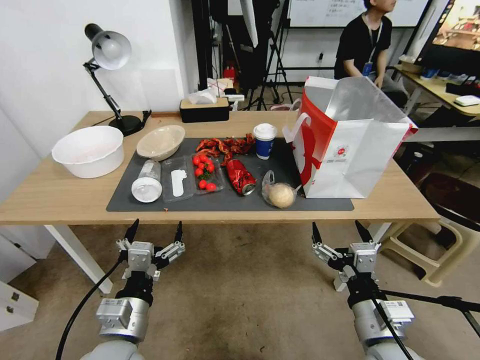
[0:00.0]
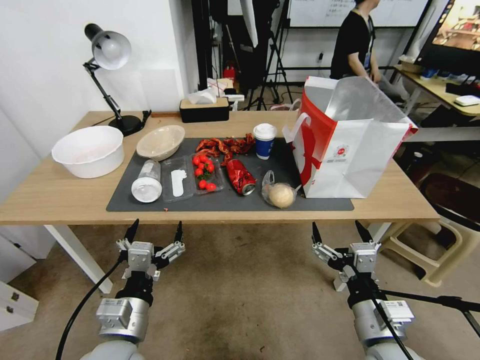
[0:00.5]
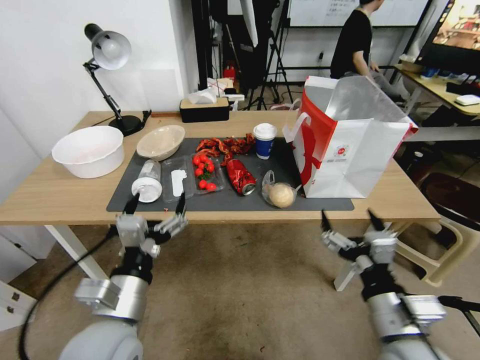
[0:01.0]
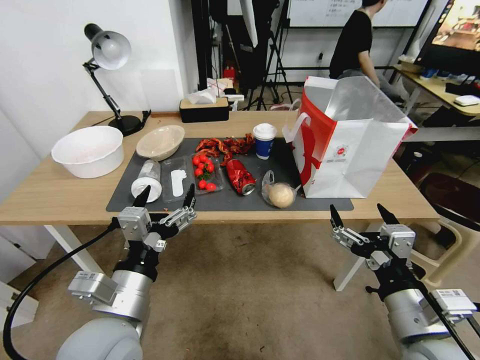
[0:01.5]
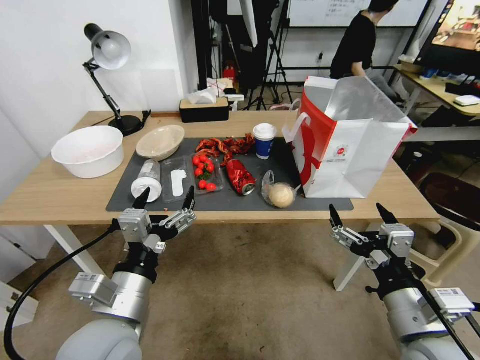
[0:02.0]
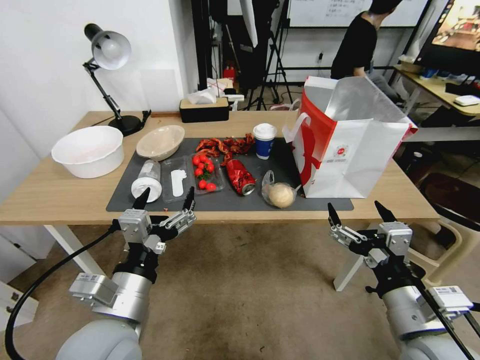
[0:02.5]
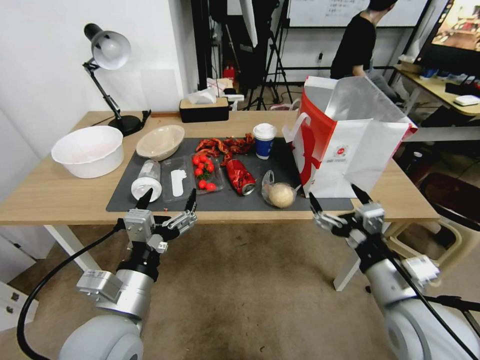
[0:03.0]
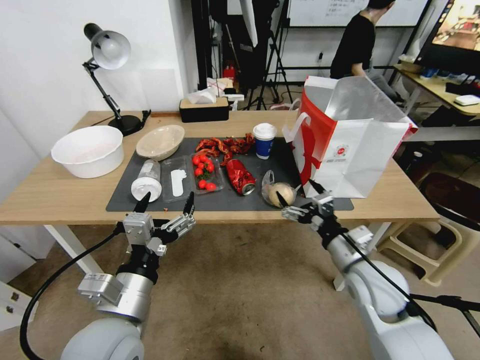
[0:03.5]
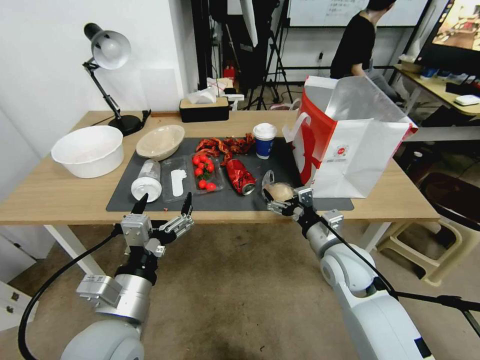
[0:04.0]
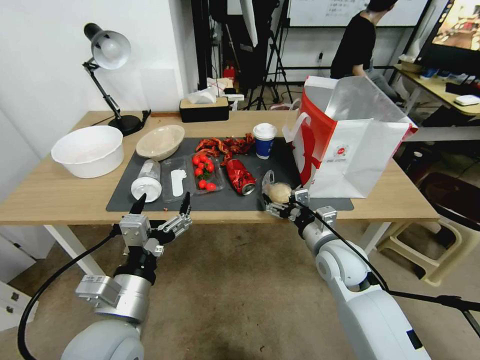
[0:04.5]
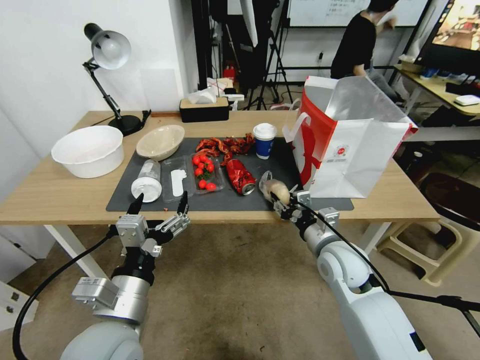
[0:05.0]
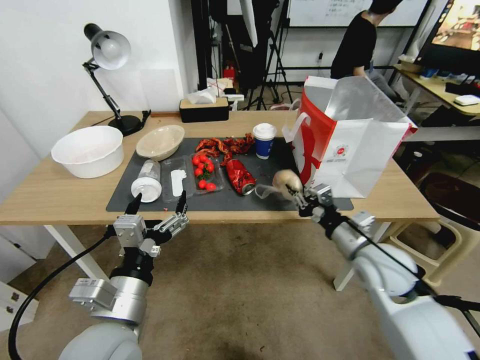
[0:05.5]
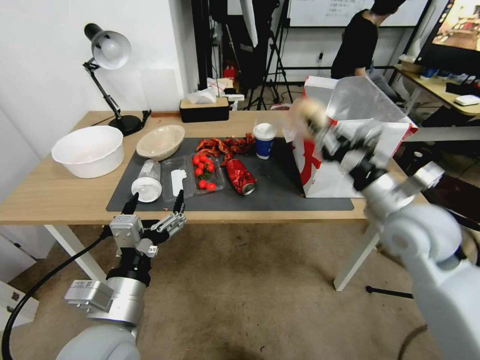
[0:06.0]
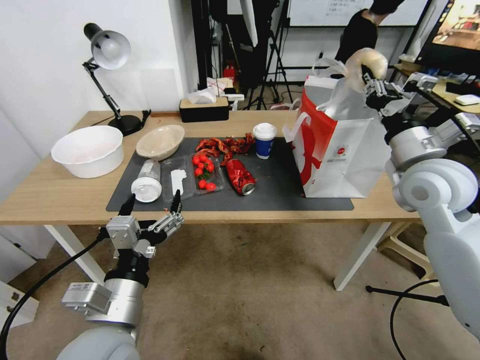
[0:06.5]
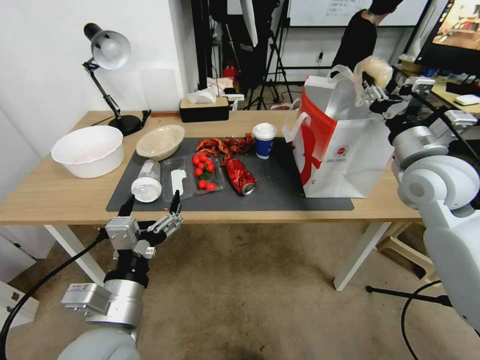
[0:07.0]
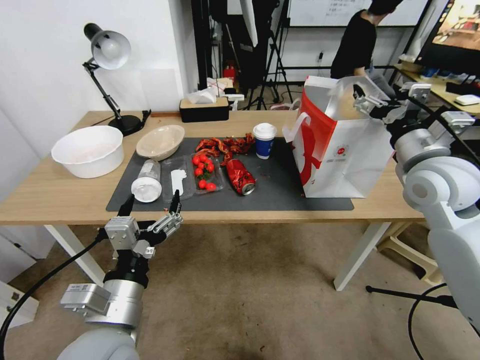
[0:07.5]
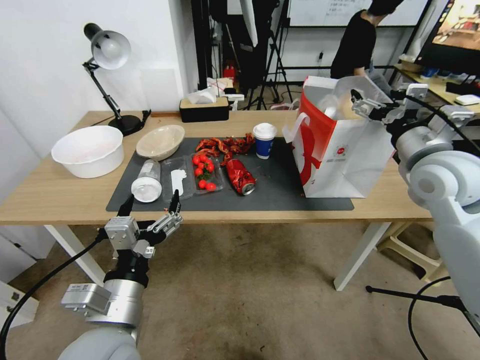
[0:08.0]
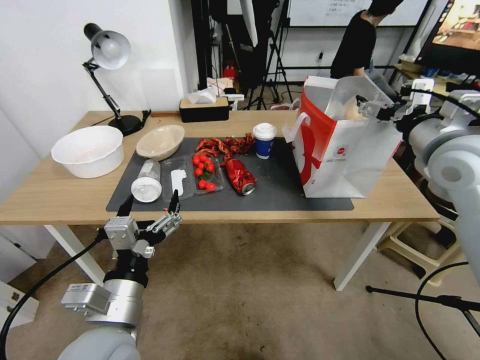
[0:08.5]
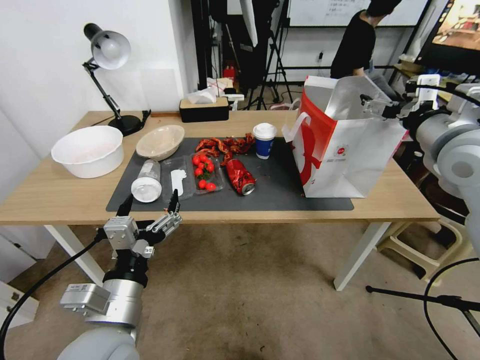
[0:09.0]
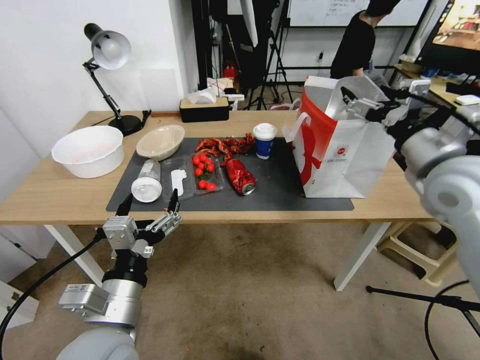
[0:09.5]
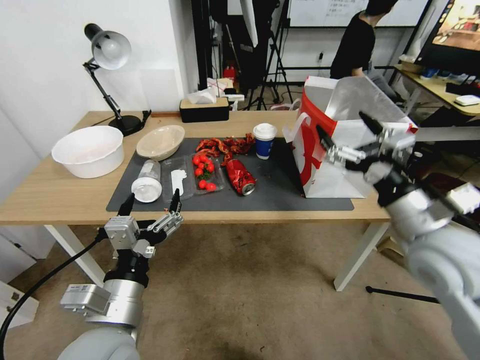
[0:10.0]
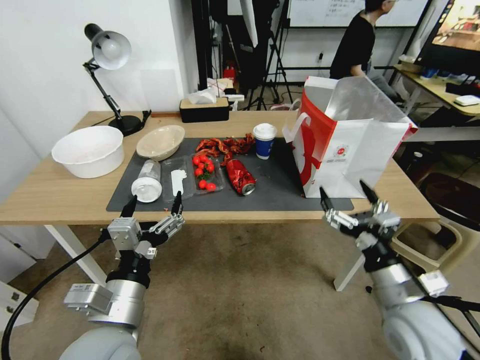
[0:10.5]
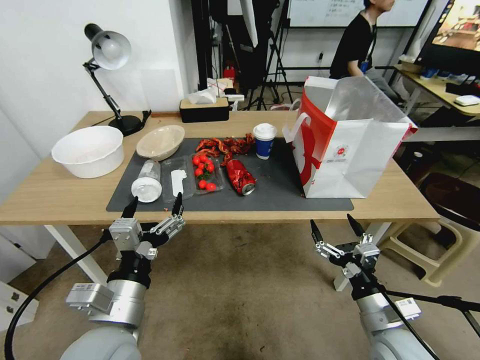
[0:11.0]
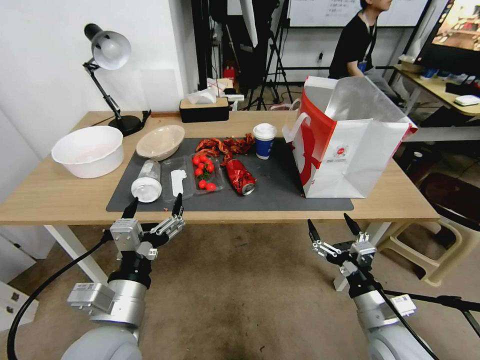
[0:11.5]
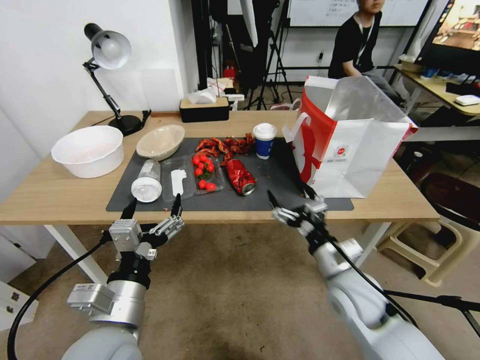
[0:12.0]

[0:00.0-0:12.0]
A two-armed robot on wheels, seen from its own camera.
0:02.0 to 0:04.0: The right gripper shifts some 20 cm forward and downward.
0:04.0 to 0:06.0: The right gripper travels upward and to the right by roughly 15 cm, and closes up.
0:06.0 to 0:08.0: The right gripper heads forward, upward and to the right, covering some 10 cm, and opens its fingers.
0:08.0 to 0:10.0: The right gripper goes roughly 5 cm backward.
0:10.0 to 0:12.0: The right gripper heads downward and to the left, covering approximately 25 cm.

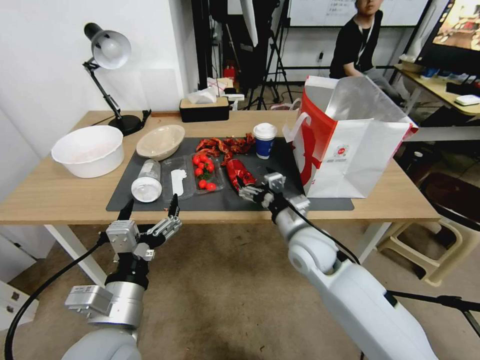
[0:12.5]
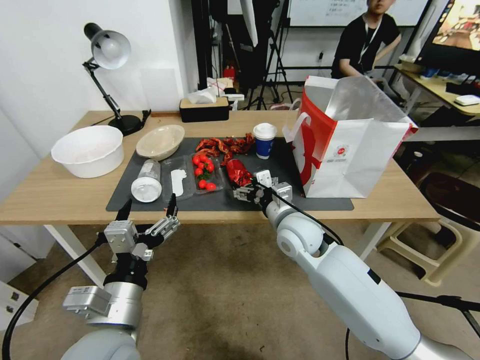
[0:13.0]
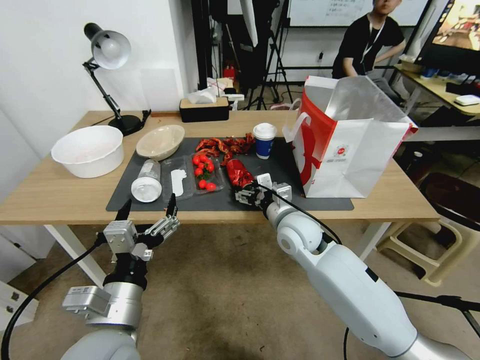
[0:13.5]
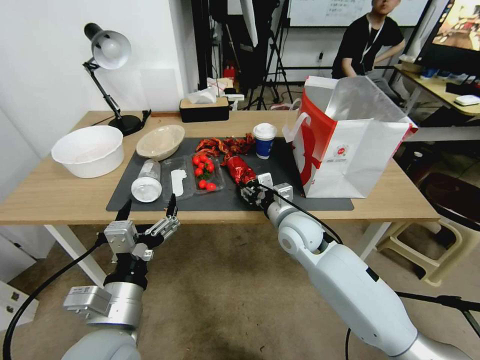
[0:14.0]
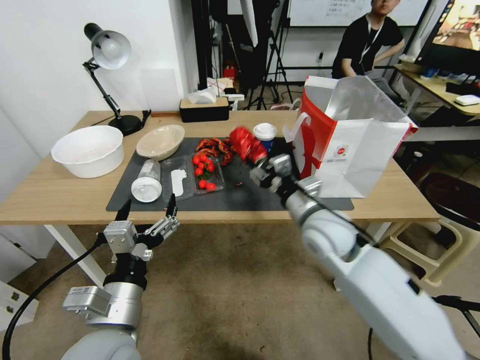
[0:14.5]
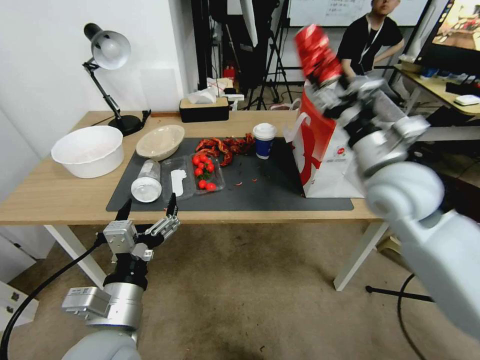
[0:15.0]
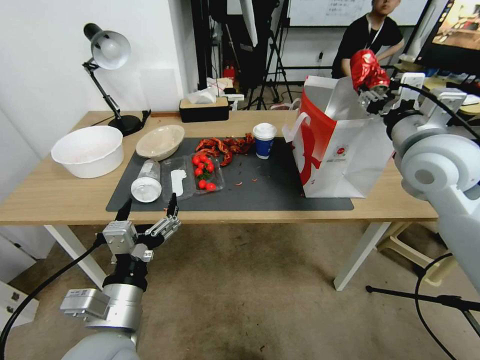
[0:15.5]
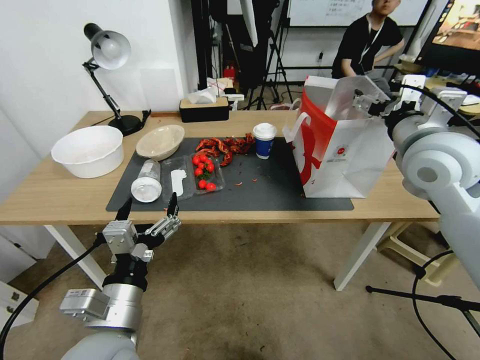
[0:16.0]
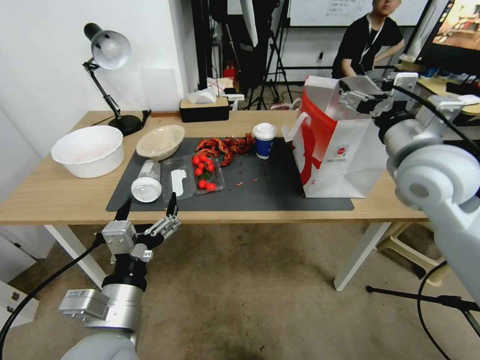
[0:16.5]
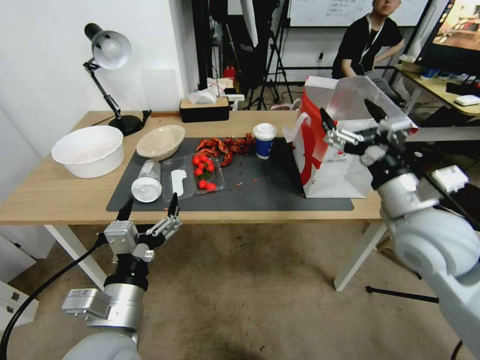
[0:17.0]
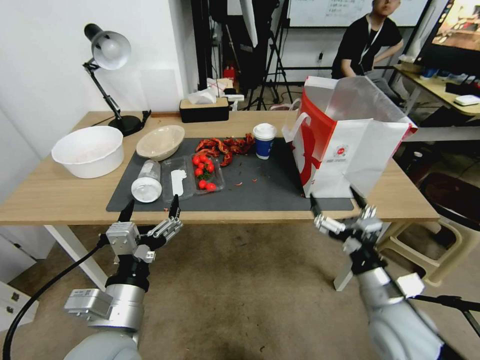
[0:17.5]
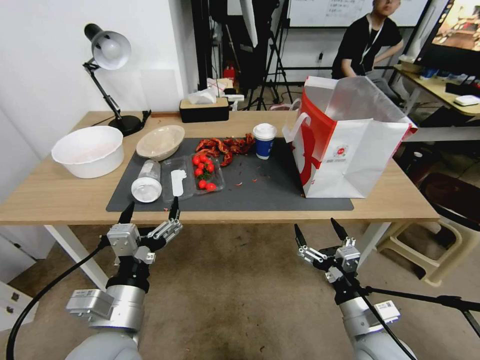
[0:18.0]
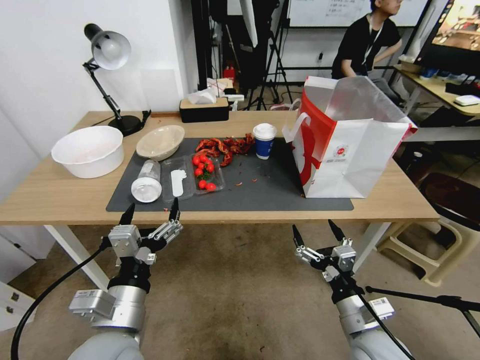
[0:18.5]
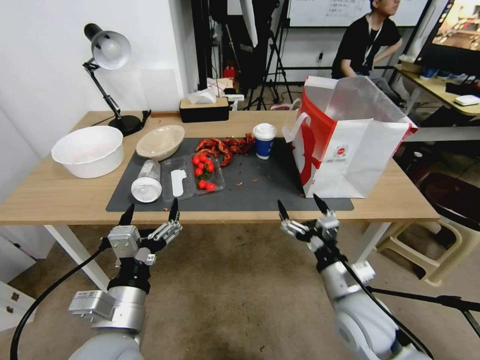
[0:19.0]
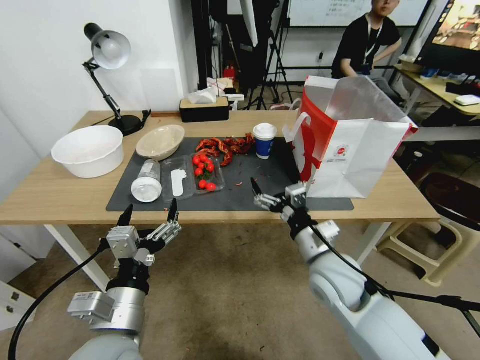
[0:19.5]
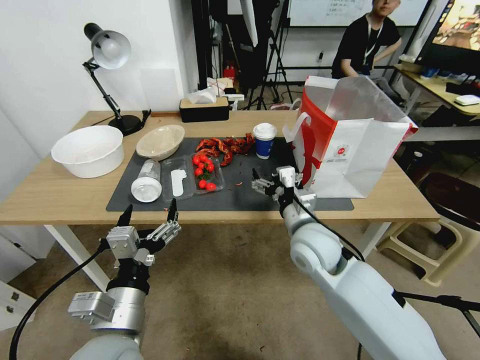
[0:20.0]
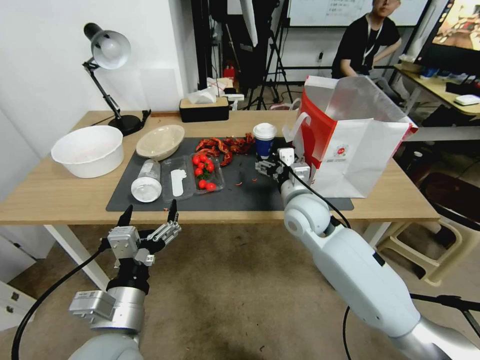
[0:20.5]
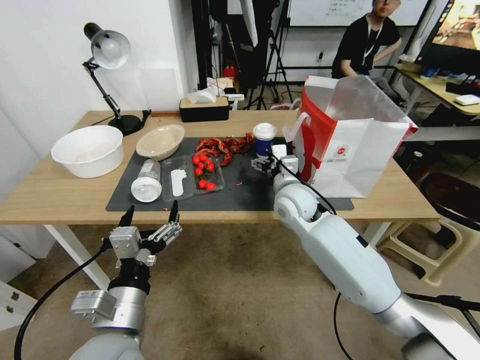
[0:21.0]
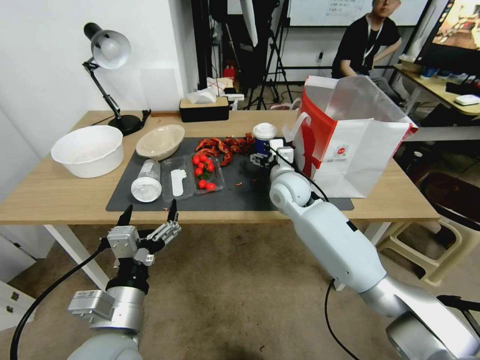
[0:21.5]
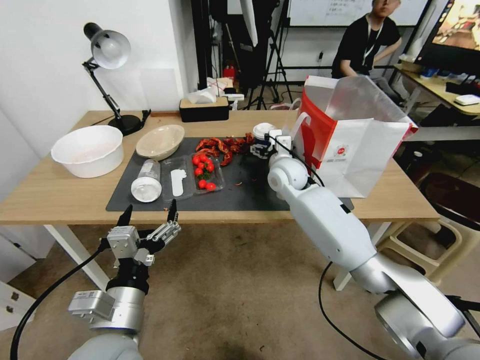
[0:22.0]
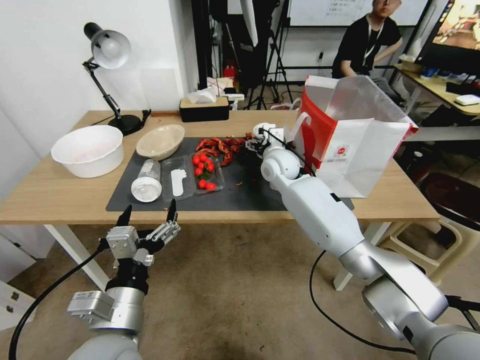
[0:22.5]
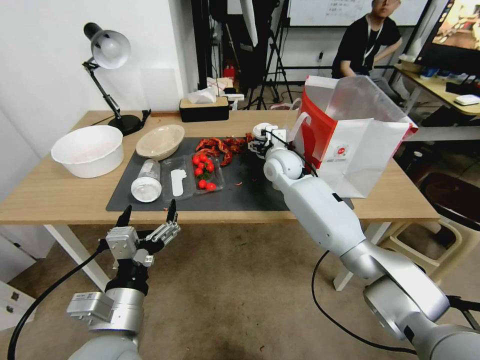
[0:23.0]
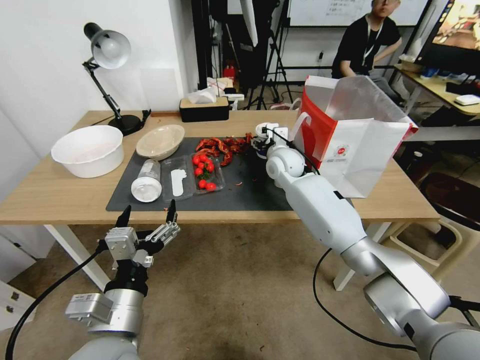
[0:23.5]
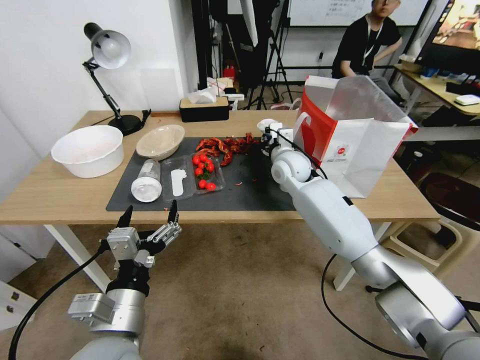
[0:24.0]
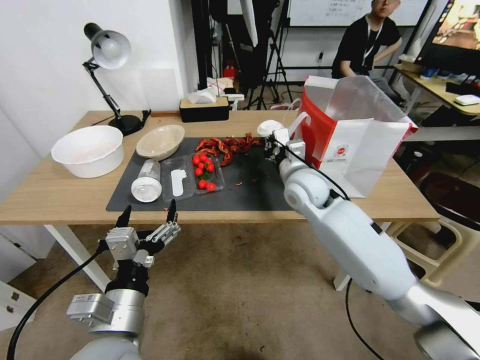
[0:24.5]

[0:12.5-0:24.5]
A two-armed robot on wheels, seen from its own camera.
0:12.5 to 0:14.5: The right gripper changes place by about 5 cm, and closes up.
0:14.5 to 0:16.5: The right gripper moves upward and to the right, approximately 20 cm, and opens.
0:16.5 to 0:18.5: The right gripper shifts about 35 cm downward and backward.
0:18.5 to 0:20.5: The right gripper goes some 30 cm forward, upward and to the left.
0:20.5 to 0:22.5: The right gripper heads forward, covering roughly 15 cm.
0:22.5 to 0:24.5: The right gripper travels backward by some 10 cm, and closes up.

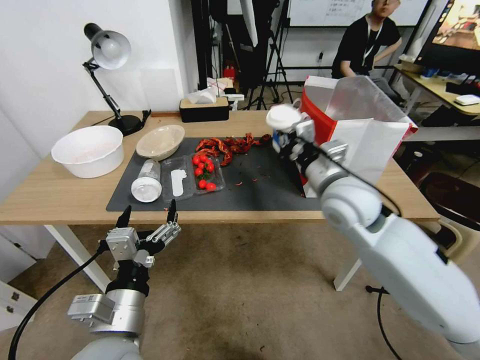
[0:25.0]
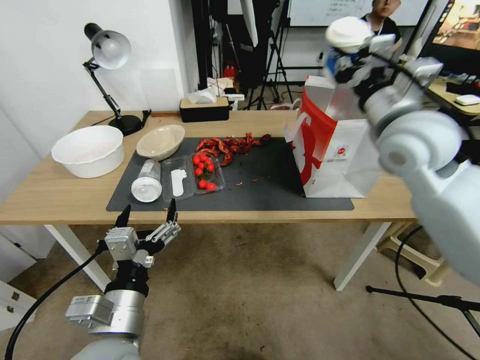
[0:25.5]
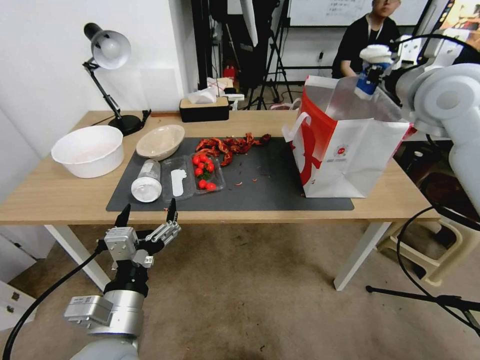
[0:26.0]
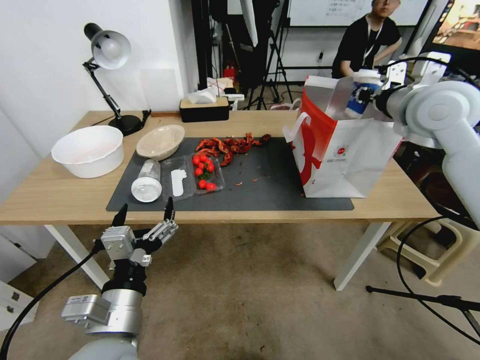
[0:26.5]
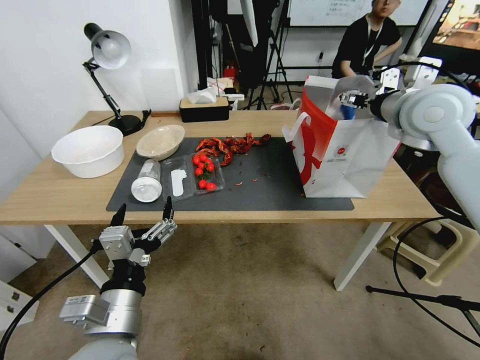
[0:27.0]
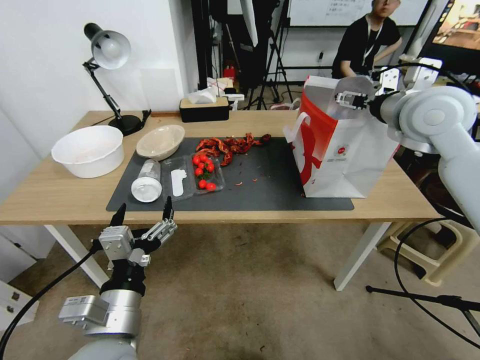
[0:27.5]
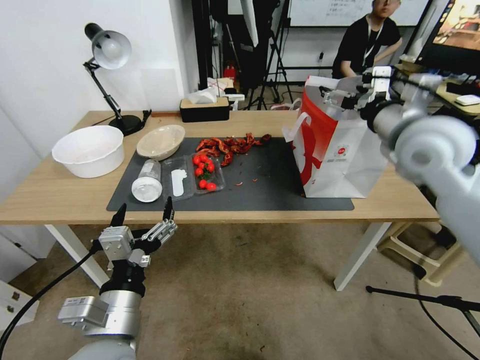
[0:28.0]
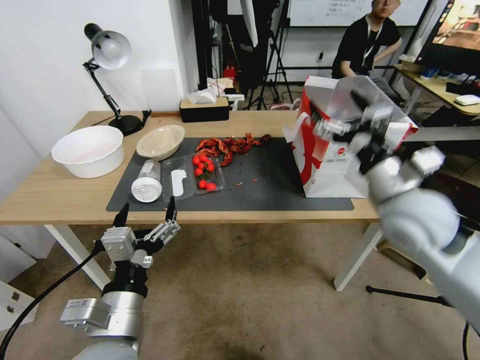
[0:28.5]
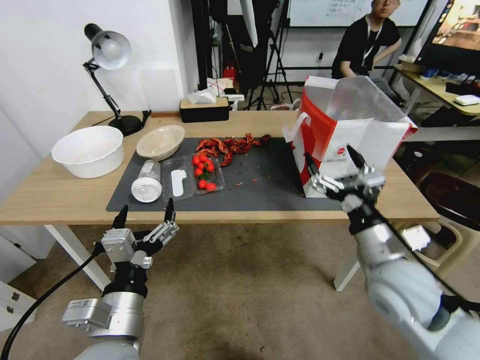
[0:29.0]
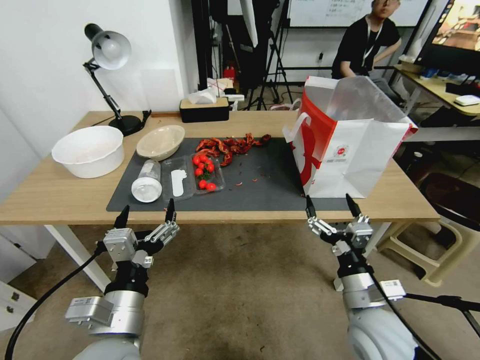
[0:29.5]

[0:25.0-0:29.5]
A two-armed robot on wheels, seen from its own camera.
0:25.0 to 0:27.0: The right gripper goes some 20 cm upward, to the right and forward, and opens its fingers.
0:27.0 to 0:29.5: The right gripper travels downward and backward by roughly 40 cm.
